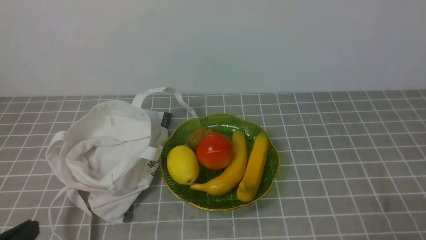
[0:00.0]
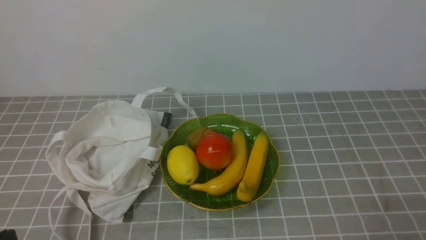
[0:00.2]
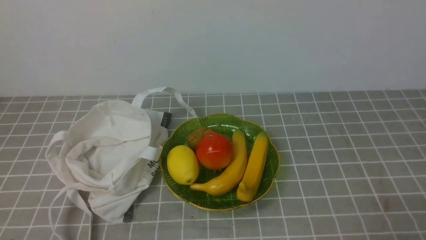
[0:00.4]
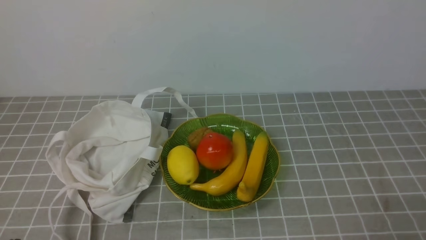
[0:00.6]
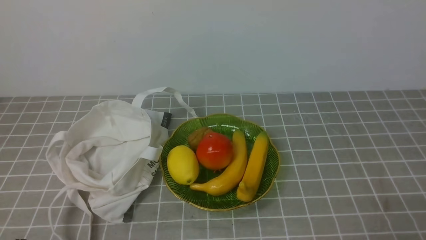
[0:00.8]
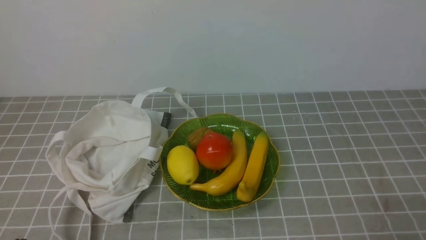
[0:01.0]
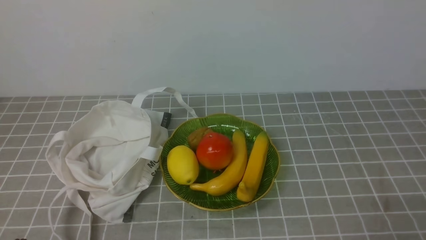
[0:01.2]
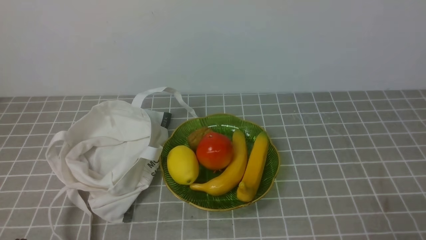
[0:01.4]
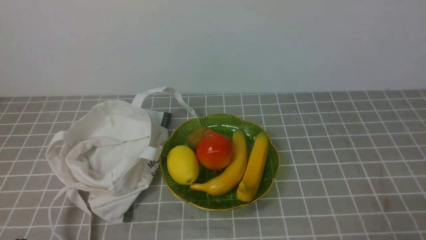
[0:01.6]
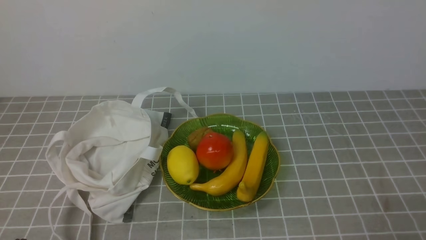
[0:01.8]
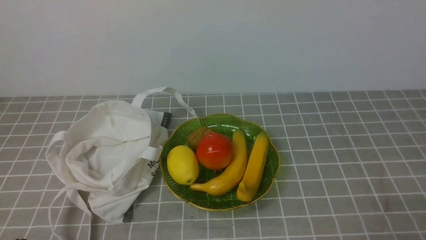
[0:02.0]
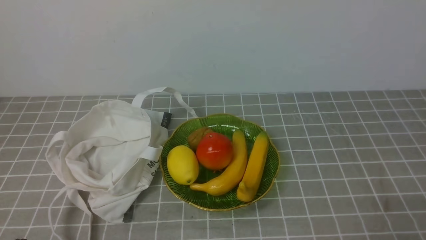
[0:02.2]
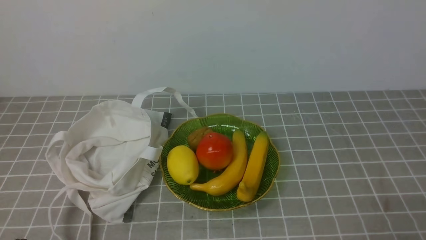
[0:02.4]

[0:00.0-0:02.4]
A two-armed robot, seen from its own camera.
0:01.2 to 0:02.4: The two grippers keep their place.

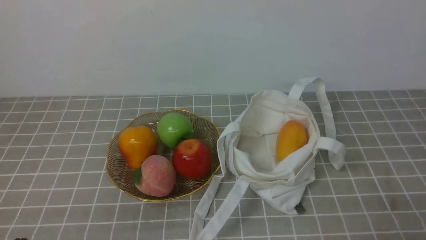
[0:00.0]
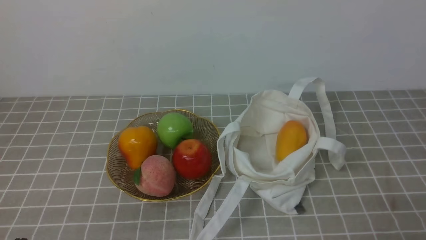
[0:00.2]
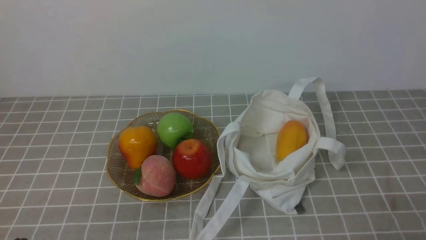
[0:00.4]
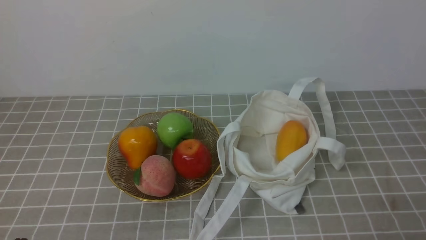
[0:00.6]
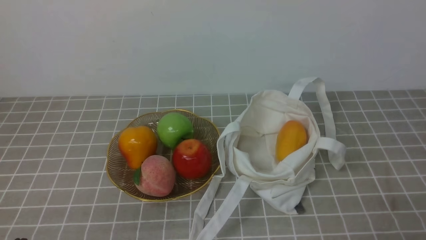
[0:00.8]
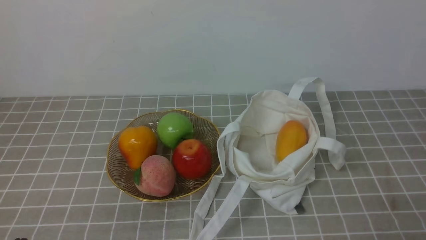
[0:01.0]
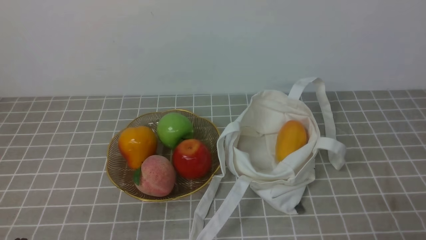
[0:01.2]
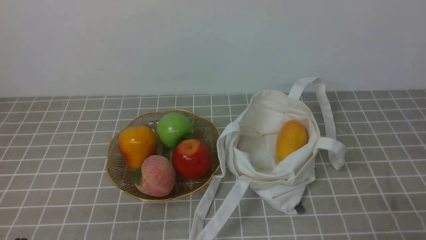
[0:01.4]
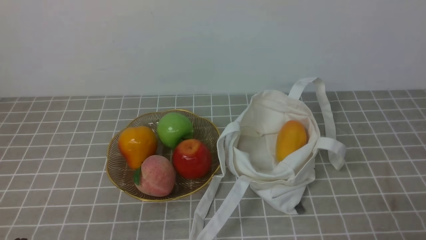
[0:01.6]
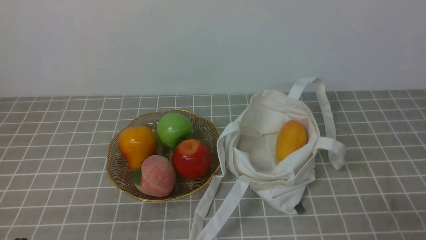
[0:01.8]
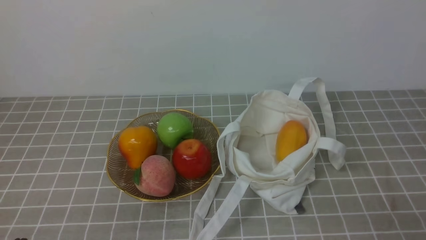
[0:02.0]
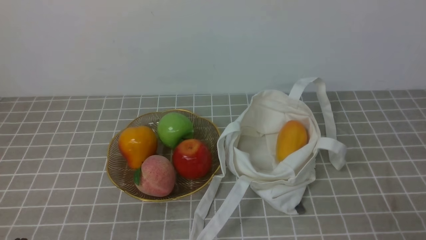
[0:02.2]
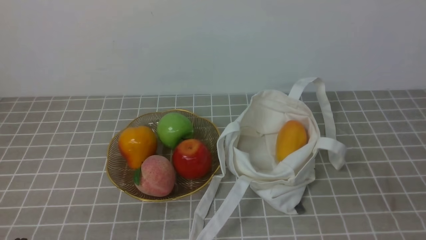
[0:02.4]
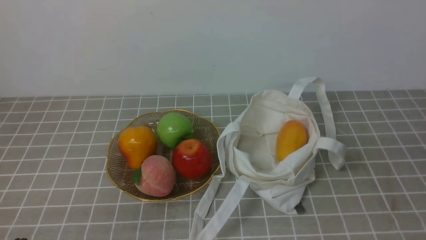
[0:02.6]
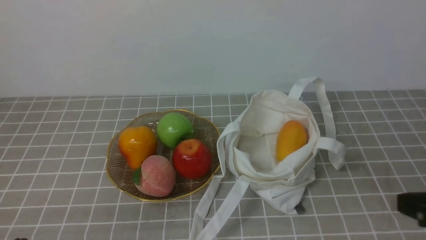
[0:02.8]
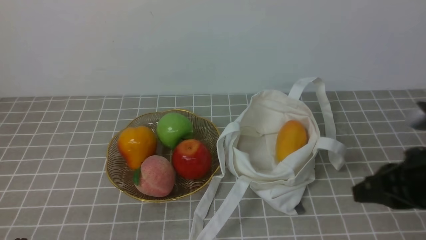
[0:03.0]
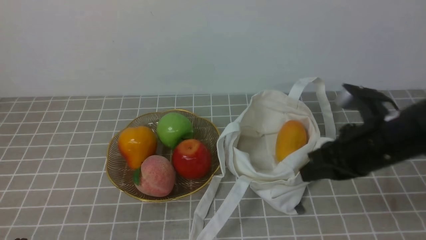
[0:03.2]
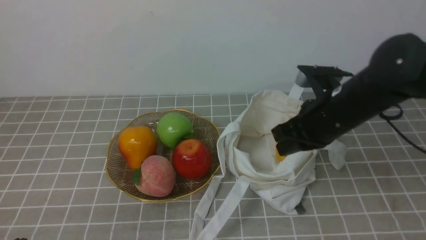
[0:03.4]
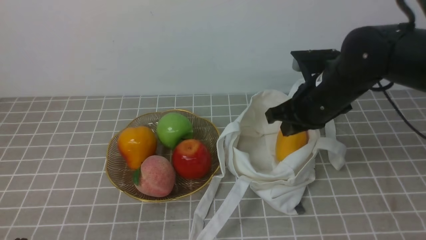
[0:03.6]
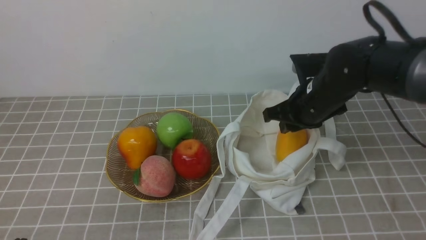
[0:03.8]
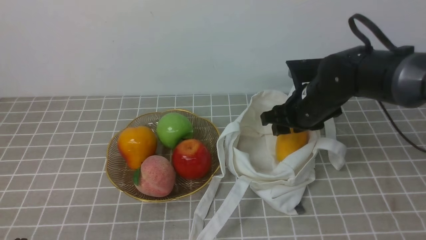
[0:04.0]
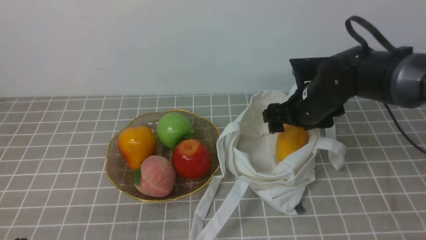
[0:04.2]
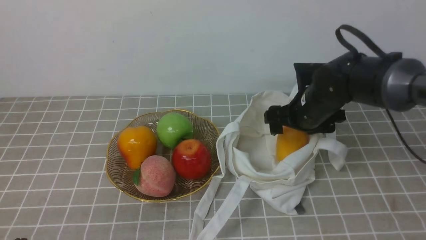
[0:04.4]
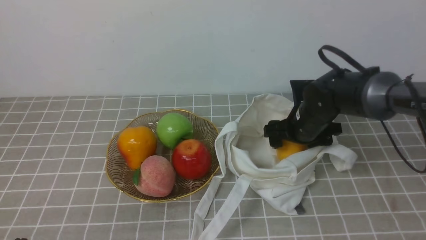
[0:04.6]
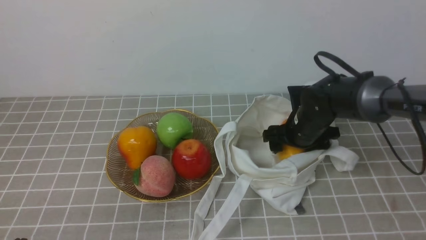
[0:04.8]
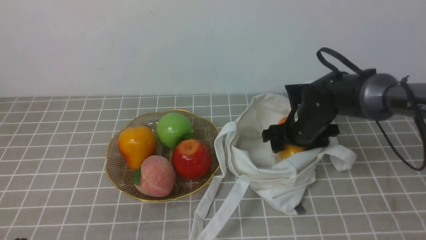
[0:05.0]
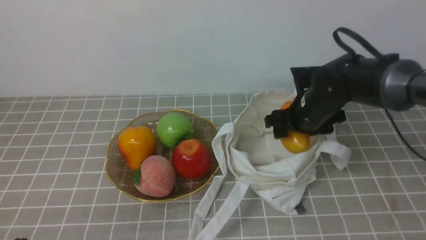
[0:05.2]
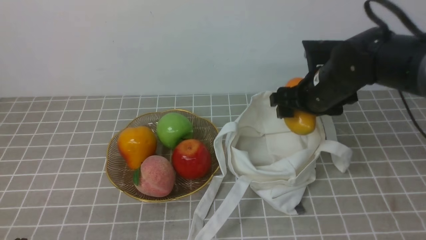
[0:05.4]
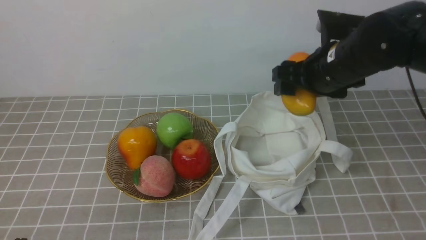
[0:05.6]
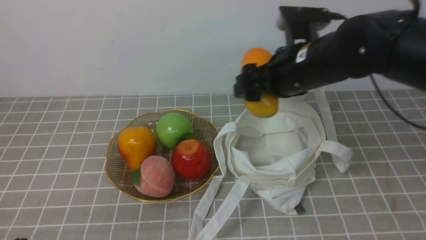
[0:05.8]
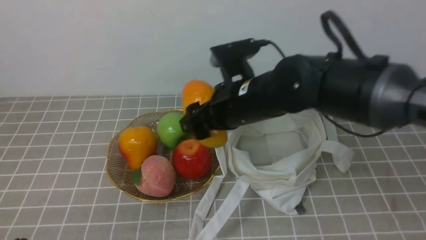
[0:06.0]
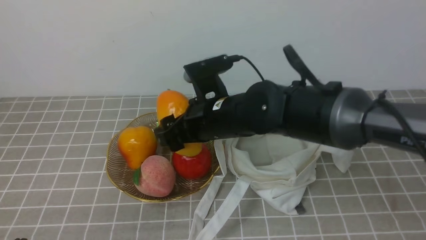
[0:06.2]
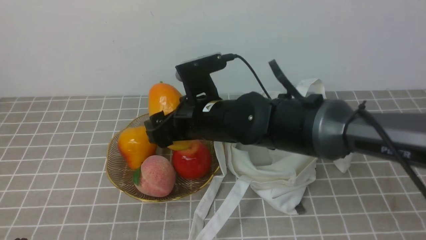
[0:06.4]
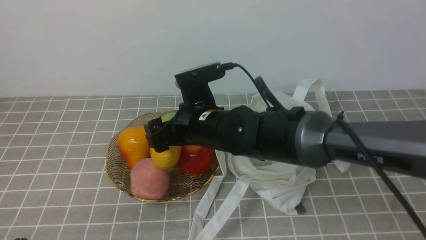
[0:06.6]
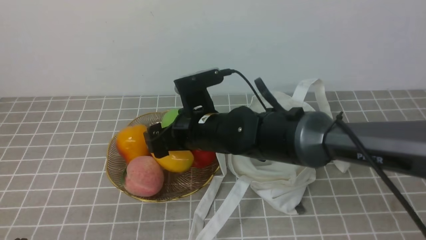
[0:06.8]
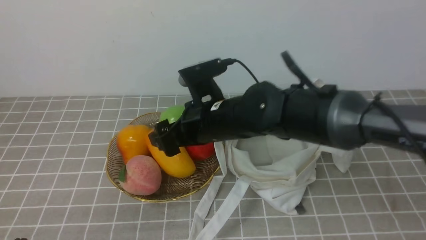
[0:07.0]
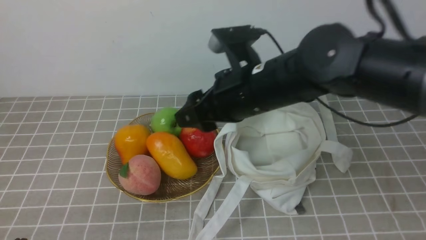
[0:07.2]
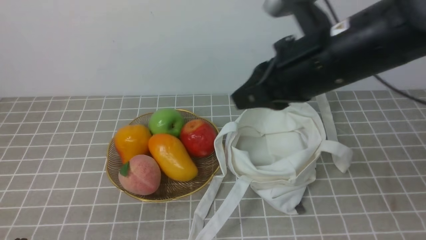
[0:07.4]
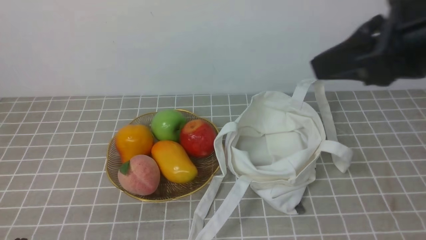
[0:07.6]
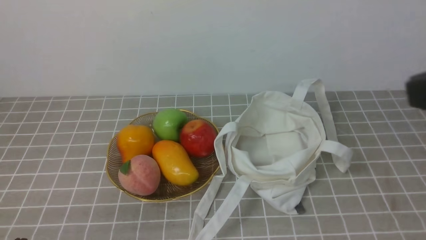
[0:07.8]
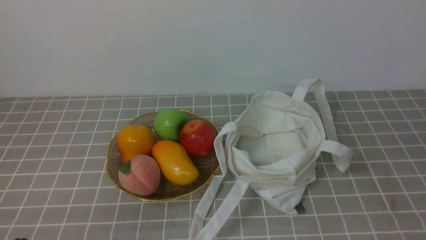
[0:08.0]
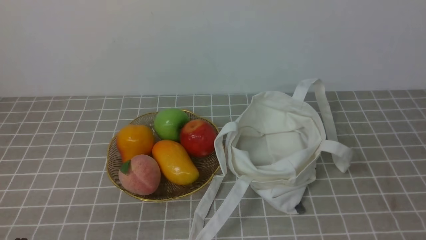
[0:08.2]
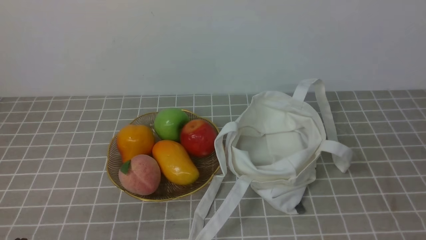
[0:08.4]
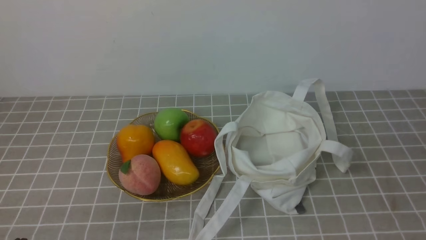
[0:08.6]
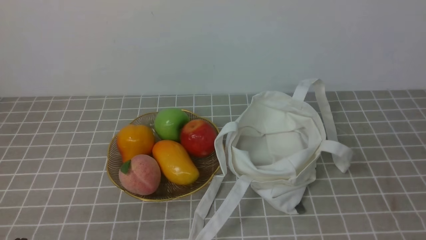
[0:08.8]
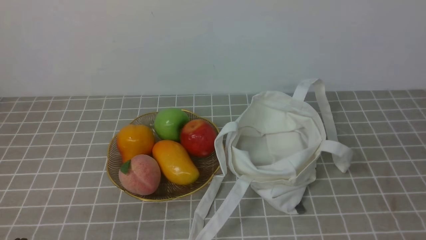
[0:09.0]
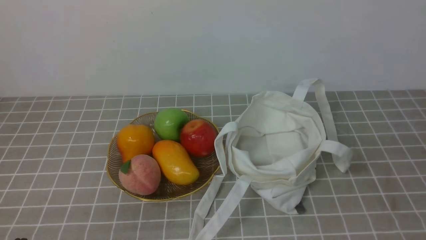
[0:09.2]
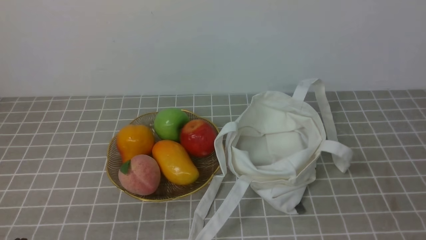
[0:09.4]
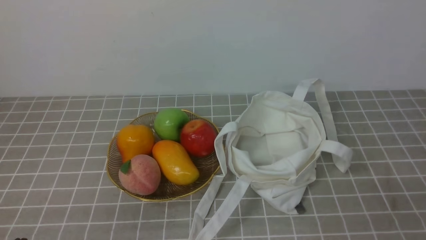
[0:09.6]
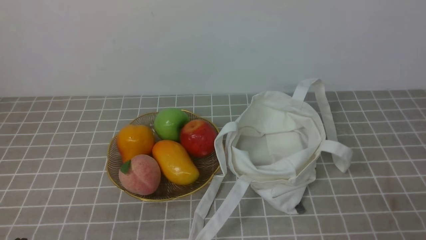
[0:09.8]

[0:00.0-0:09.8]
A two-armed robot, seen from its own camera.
Step, 0:00.0 to 0:05.0: use the right arm to grab a mango from the bag.
Step, 0:05.2 to 0:06.6: use the right arm to put the mango into the empty plate on the left.
0:00.0 to 0:01.4: Both grippers stay about where they are.
0:01.4 to 0:02.8: The right gripper shifts about 15 cm upward and forward.
0:02.8 to 0:04.2: The right gripper travels forward and to the left by about 25 cm, and opens up.
0:04.2 to 0:05.6: The right gripper moves upward, some 10 cm.
0:05.6 to 0:07.0: The right gripper travels to the left by some 15 cm.
0:07.0 to 0:08.4: The right gripper shifts approximately 40 cm backward and to the right, and closes up.

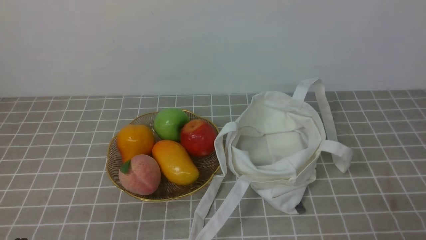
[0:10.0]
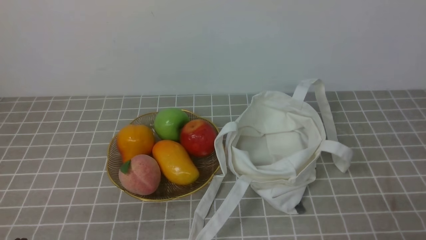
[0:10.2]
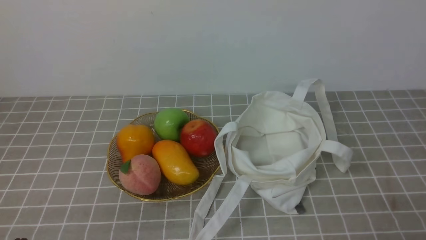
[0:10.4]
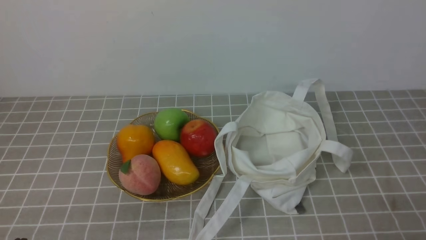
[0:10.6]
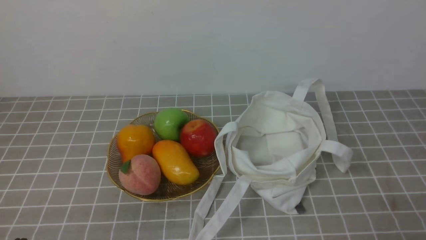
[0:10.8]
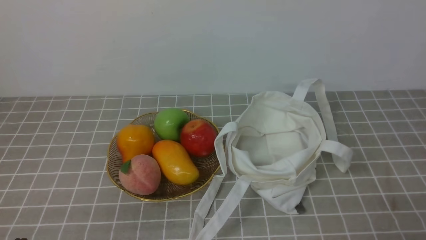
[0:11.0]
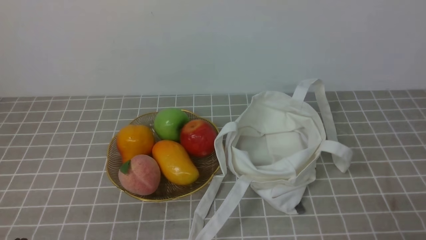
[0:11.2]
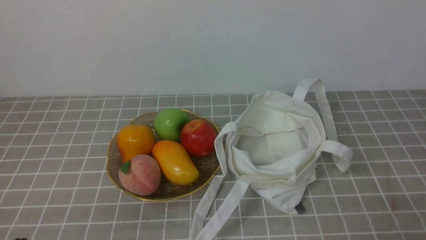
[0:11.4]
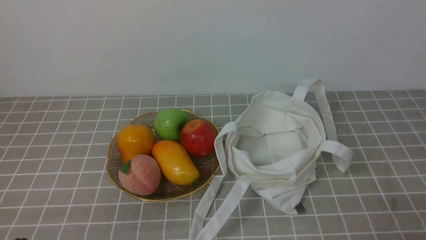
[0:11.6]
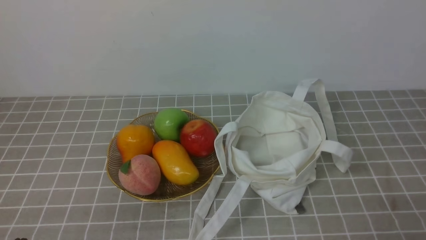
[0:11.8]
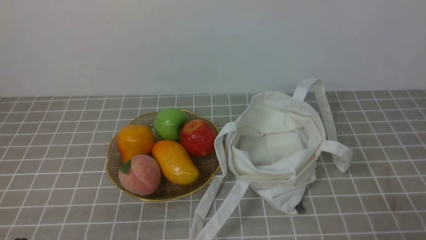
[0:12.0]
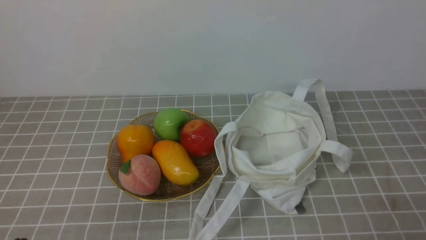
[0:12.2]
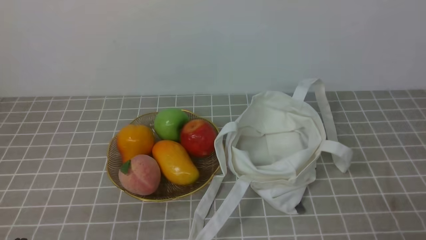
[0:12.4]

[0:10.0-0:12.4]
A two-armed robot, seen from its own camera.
0:11.2 to 0:12.4: Neither gripper changes place.
